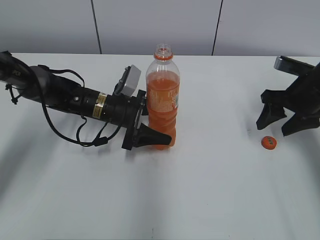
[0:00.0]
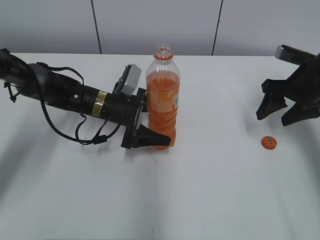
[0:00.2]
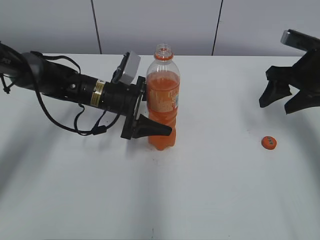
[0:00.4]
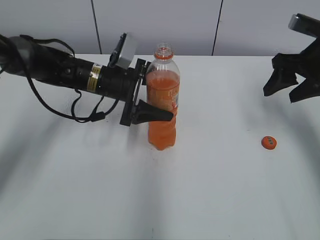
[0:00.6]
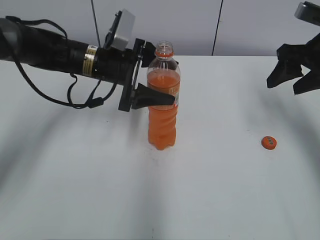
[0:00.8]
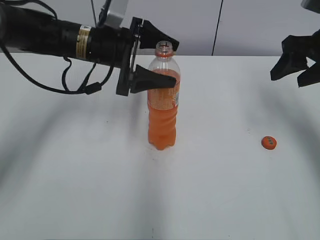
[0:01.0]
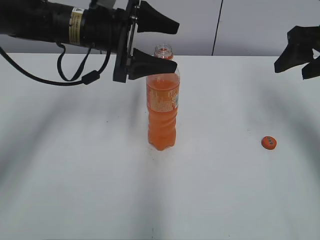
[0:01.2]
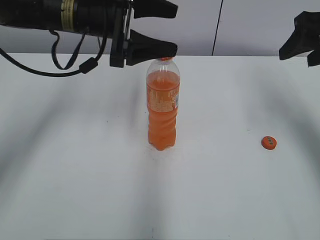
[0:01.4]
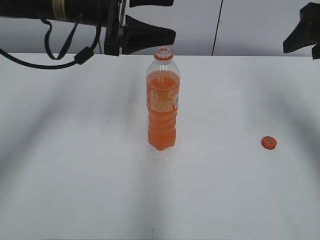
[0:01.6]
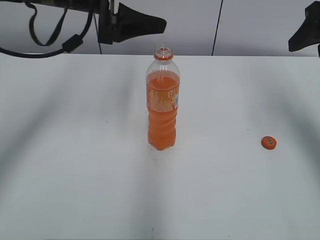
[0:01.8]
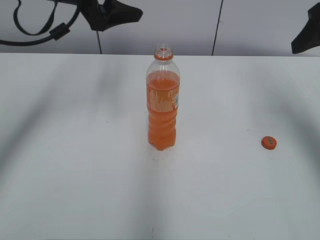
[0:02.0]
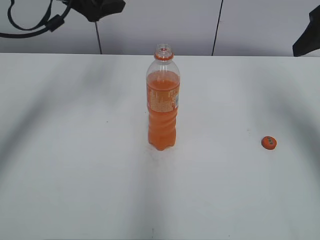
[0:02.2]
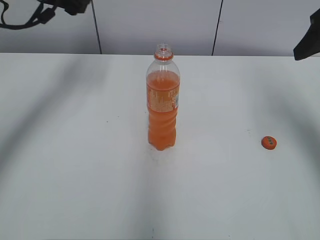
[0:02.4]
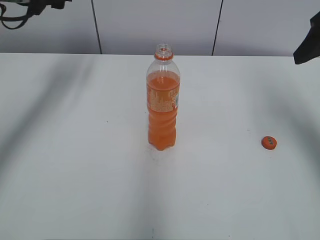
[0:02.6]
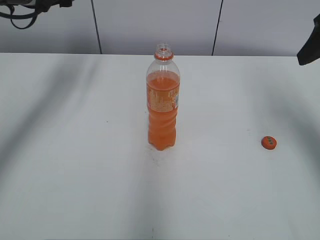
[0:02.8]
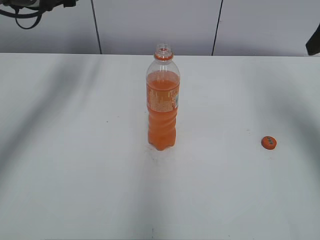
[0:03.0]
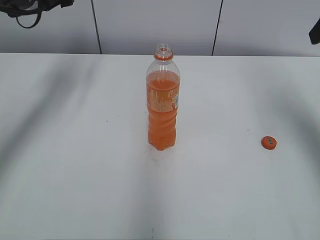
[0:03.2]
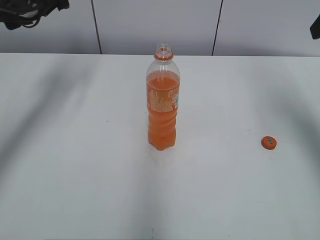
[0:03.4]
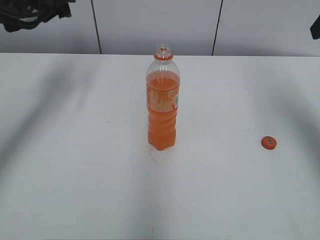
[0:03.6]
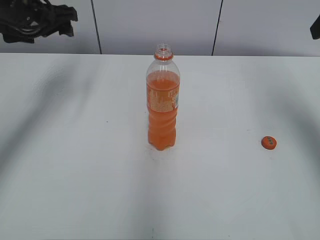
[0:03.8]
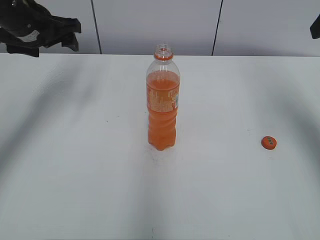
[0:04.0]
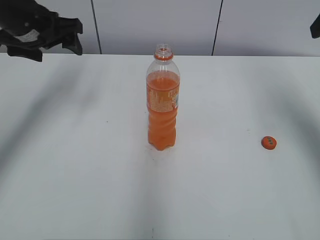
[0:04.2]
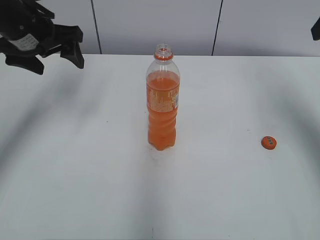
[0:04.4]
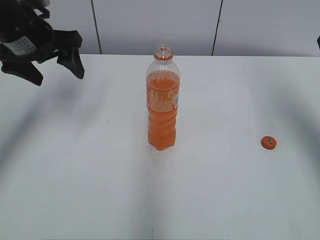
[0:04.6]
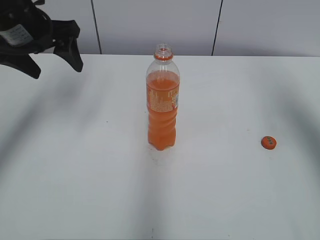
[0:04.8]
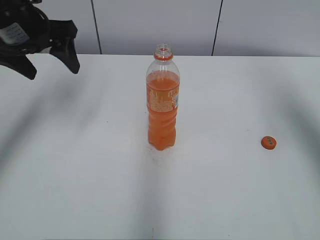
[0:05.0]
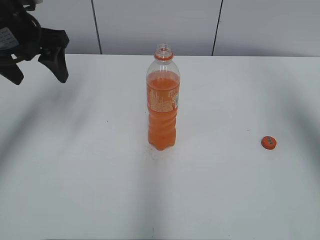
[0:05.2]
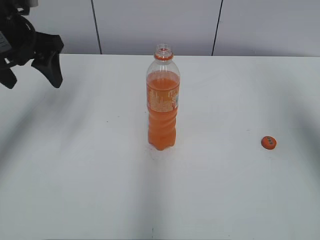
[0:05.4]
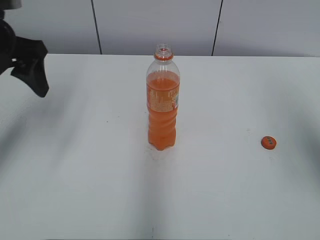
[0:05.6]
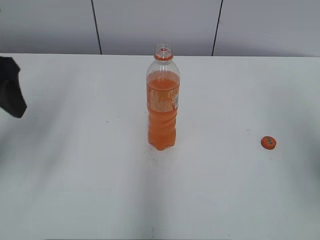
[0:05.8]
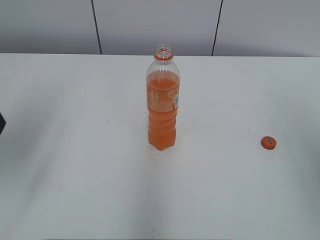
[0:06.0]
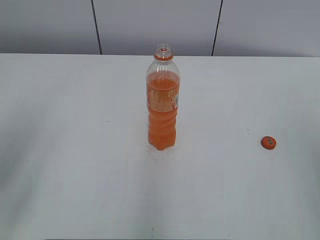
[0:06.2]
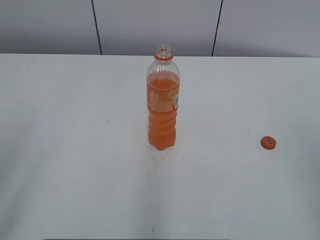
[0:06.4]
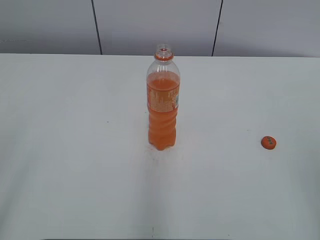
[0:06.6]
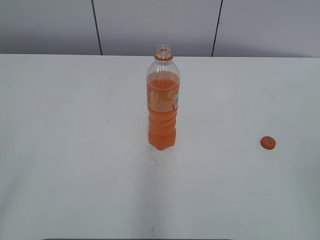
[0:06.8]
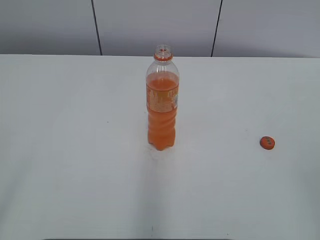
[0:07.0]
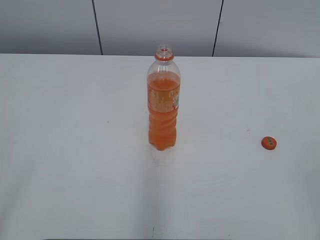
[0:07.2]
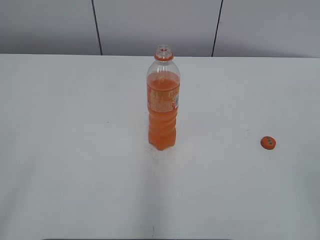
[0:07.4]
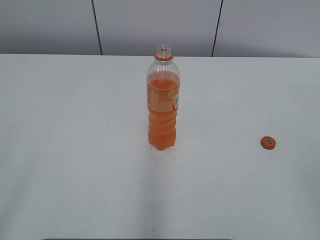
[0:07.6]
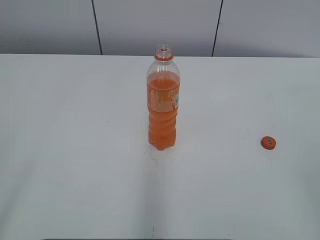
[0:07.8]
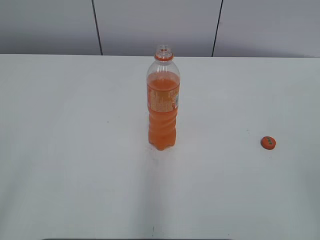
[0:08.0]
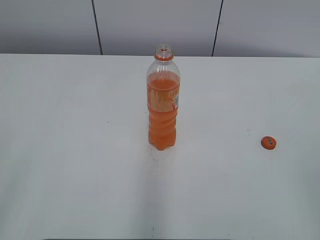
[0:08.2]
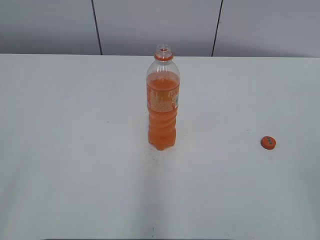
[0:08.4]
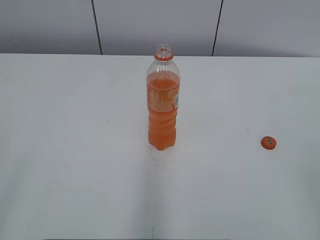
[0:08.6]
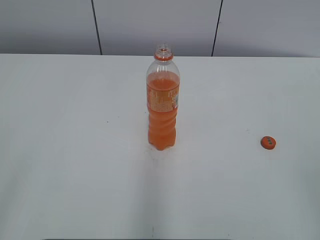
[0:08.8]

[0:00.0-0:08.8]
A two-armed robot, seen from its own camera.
Step, 0:00.0 to 0:00.2: Place the Mirinda with the left hand.
0:00.0 to 0:01.4: Both grippers travel together upward, approximately 15 cm. The left gripper opens its fingers.
0:01.4 to 0:03.0: The left gripper travels to the left and forward by some 15 cm.
0:03.0 to 0:04.4: The left gripper shifts some 5 cm backward.
0:04.4 to 0:05.8: Both grippers move backward, about 15 cm.
0:05.8 to 0:07.4: The grippers both shift backward by roughly 20 cm.
